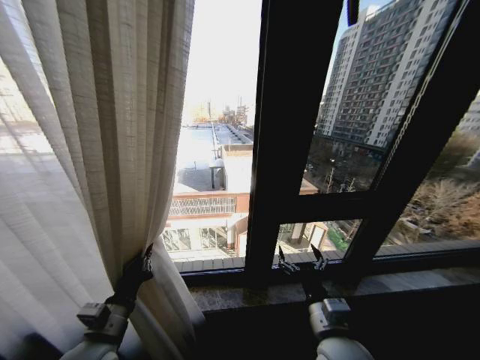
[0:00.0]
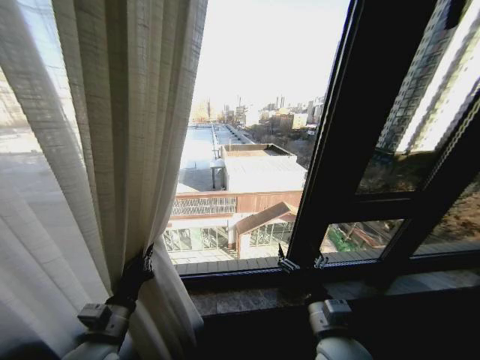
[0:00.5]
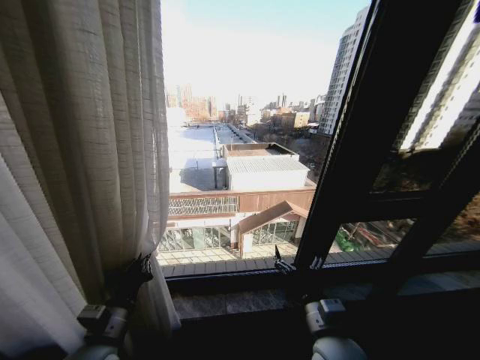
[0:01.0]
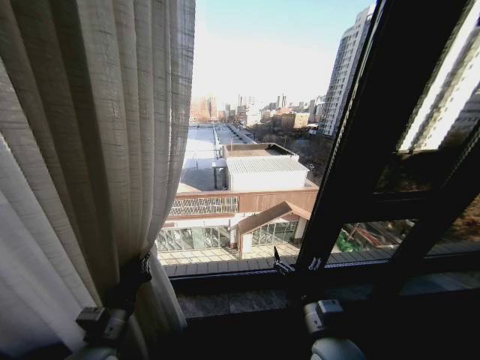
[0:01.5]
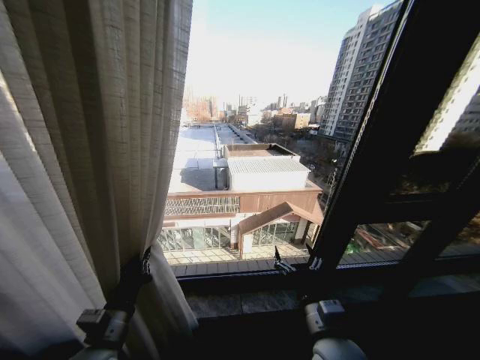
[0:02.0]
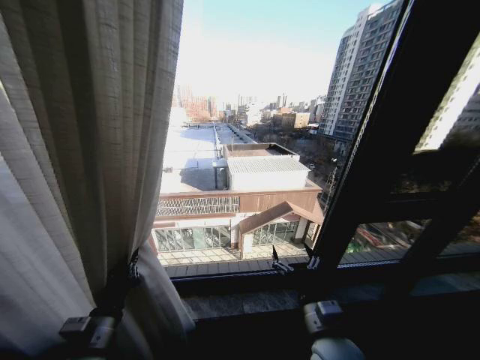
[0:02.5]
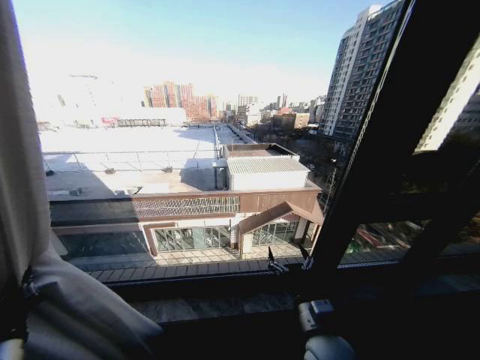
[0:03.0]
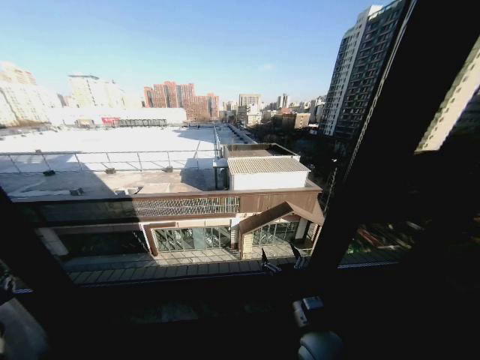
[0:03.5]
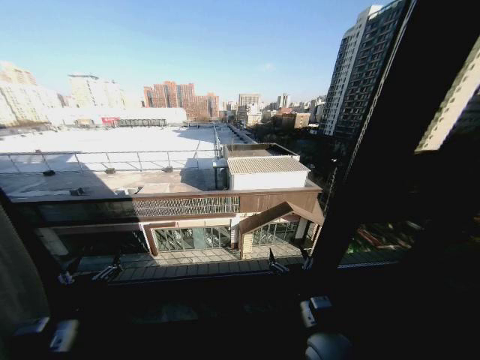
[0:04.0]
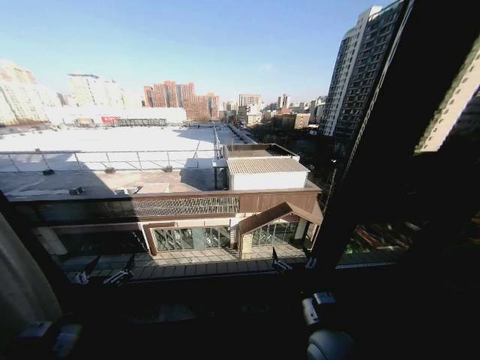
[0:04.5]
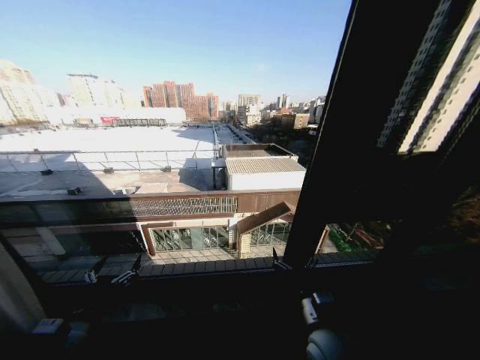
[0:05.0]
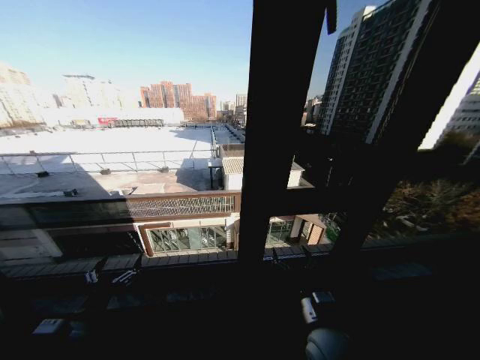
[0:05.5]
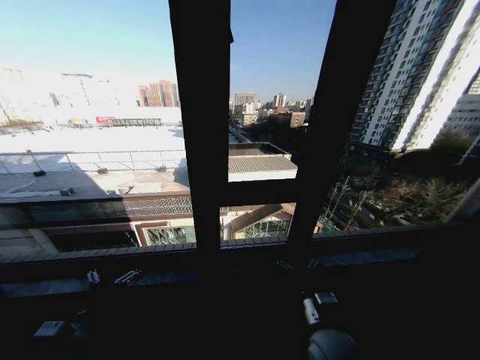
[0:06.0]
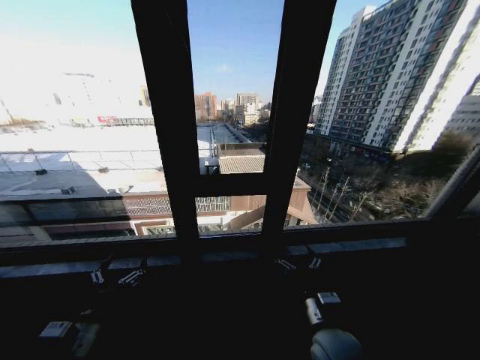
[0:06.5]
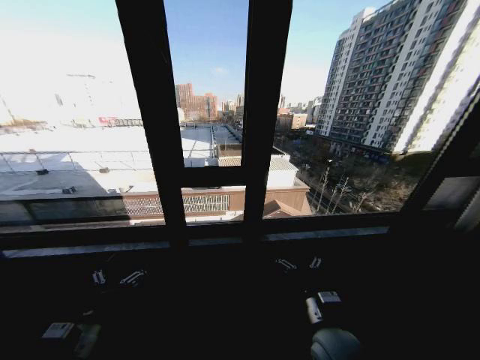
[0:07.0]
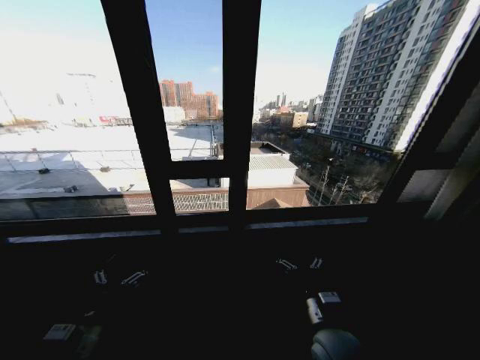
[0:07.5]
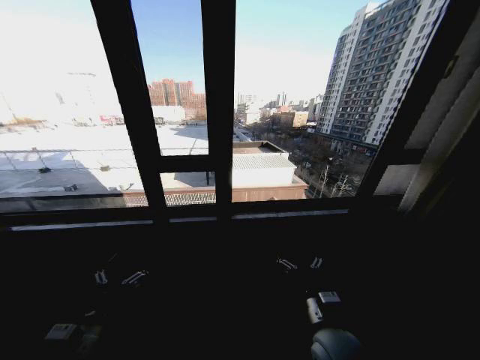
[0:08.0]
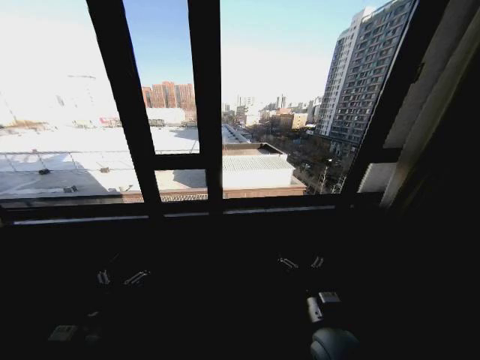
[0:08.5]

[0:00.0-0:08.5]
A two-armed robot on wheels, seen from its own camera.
Task of the whole recording: Open the curtains by pulling them apart, changing their state from closed to fully open.
0:02.0 to 0:04.0: The left gripper moves approximately 20 cm to the left and comes back, and opens its fingers.
